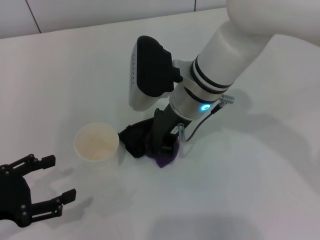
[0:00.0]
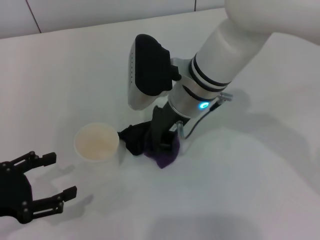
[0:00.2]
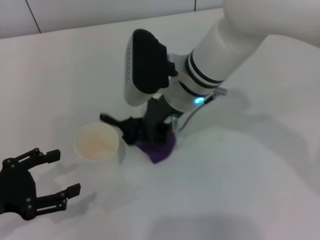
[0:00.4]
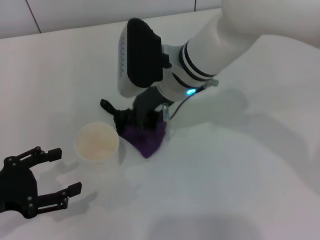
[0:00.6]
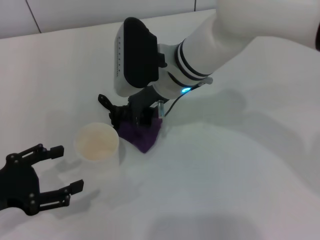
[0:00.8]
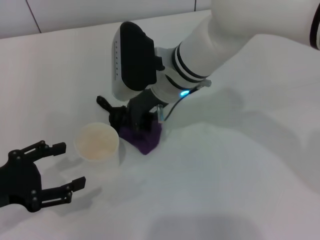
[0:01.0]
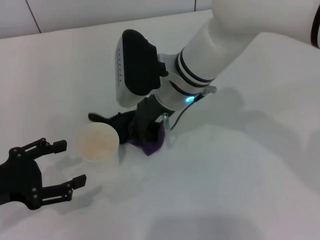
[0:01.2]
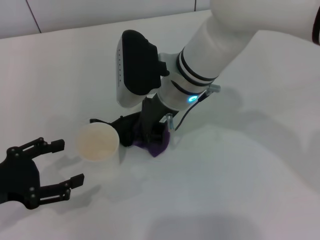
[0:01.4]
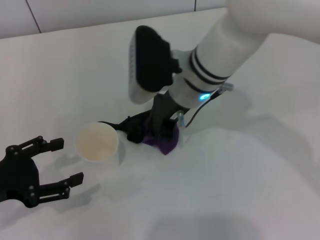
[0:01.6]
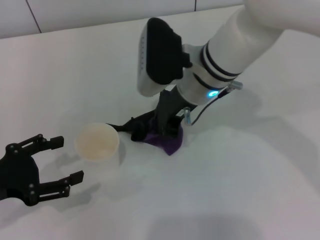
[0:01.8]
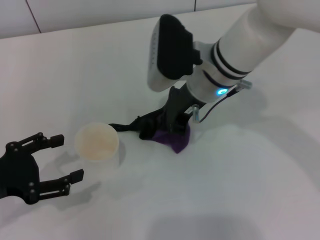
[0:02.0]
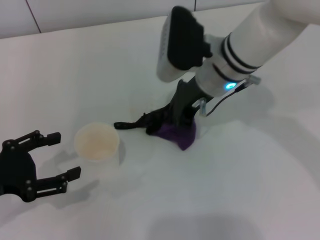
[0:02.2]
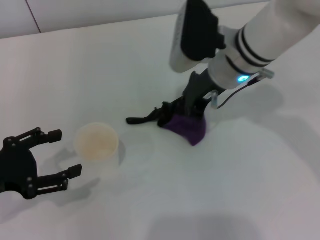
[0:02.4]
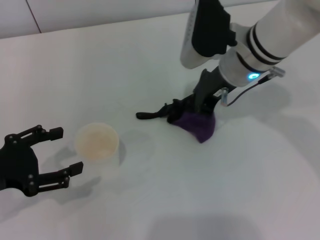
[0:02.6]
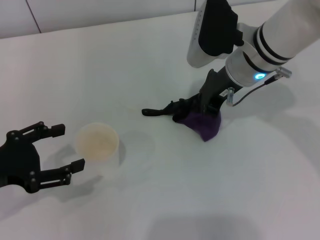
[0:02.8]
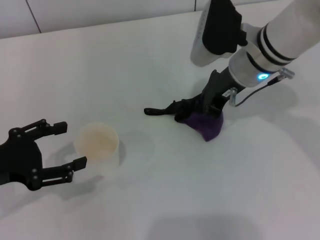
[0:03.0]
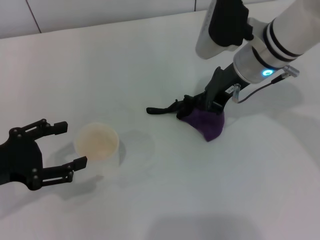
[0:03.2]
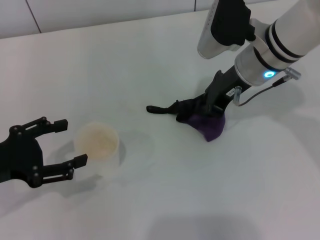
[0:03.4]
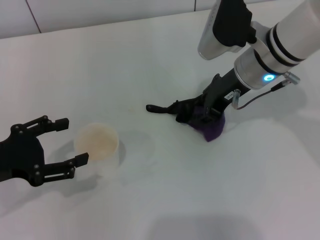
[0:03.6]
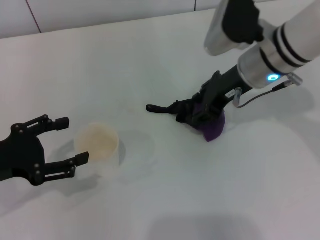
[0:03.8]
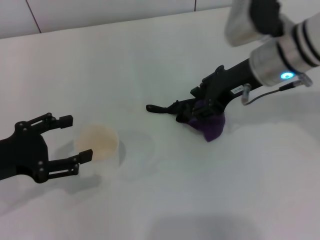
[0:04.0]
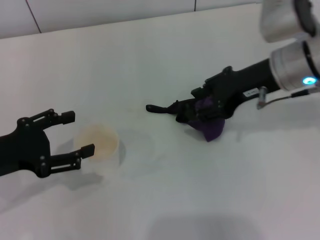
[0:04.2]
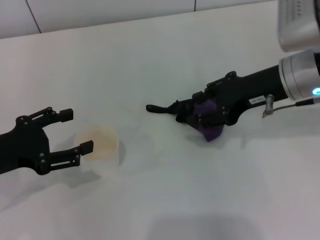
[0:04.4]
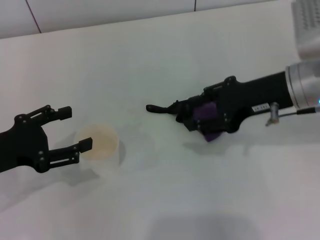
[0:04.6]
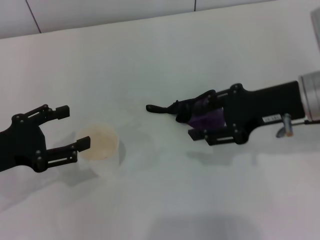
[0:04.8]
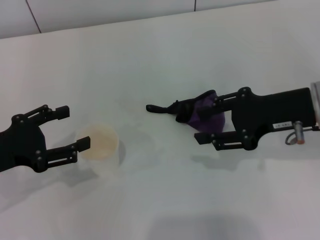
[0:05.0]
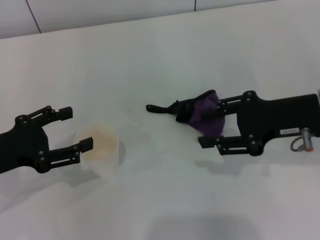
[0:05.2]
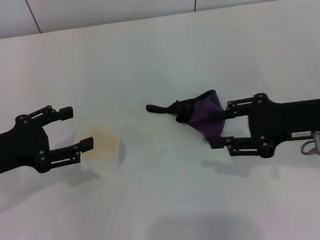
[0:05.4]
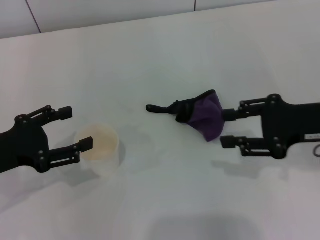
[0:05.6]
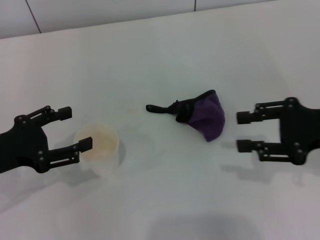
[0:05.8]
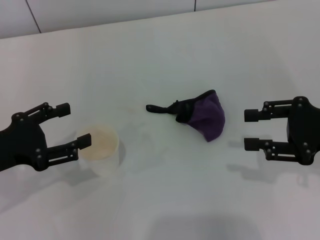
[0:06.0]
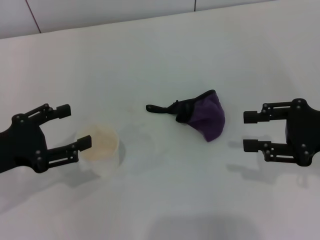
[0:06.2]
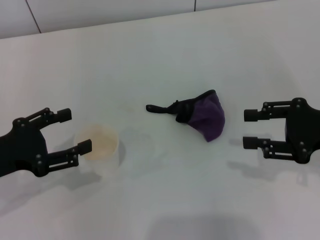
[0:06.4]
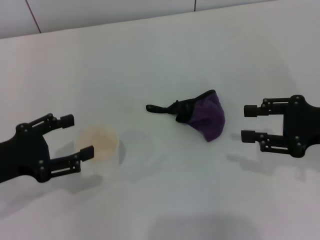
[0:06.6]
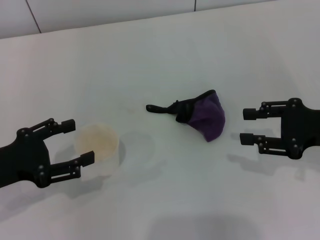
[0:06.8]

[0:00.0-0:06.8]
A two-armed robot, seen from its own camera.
Step, 0:01.6 to 0:05.0: Place the rag on the table with the right gripper.
0:00.0 to 0:01.4: The grippers make only small movements.
0:01.4 to 0:02.8: The right gripper heads to the right, covering approximately 10 cm.
0:02.8 to 0:04.0: The right gripper opens its fingers.
0:04.0 to 0:05.4: The right gripper goes some 10 cm backward and to the right.
0:05.4 to 0:06.8: The right gripper changes place by some 5 cm.
